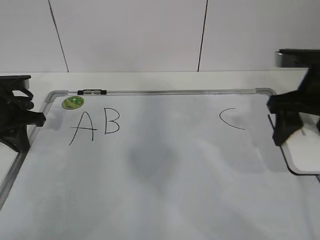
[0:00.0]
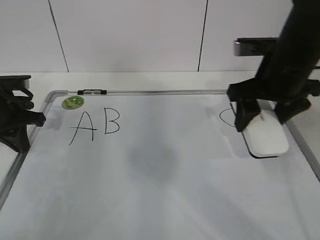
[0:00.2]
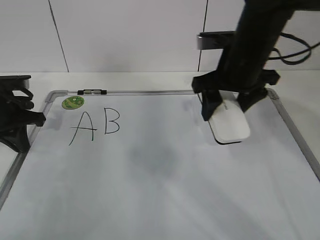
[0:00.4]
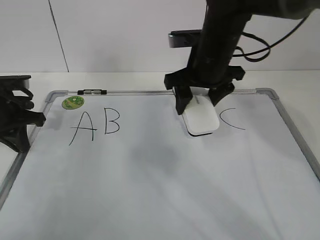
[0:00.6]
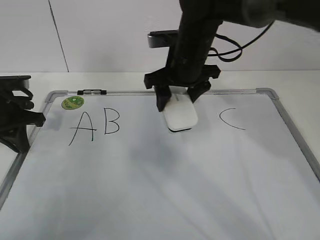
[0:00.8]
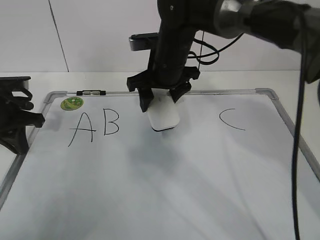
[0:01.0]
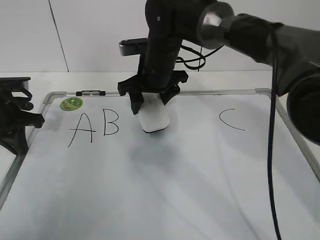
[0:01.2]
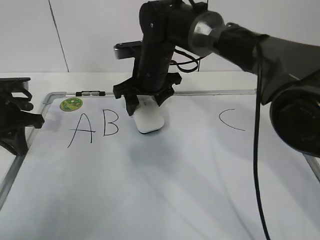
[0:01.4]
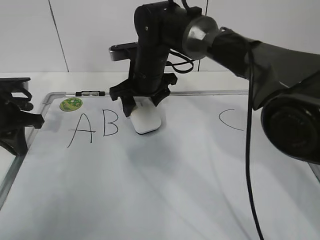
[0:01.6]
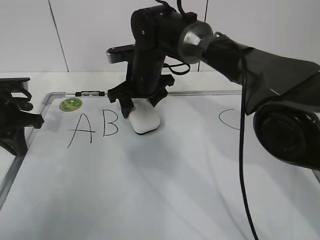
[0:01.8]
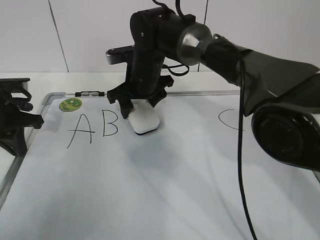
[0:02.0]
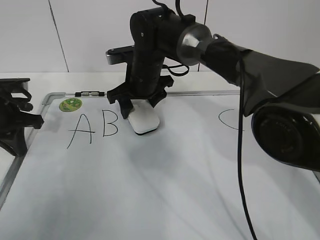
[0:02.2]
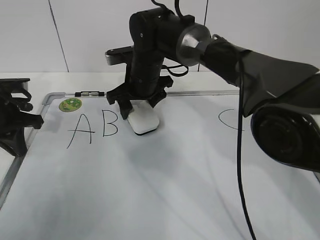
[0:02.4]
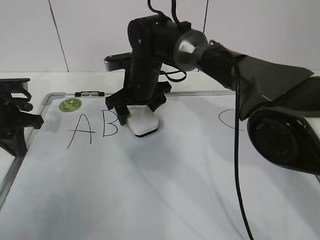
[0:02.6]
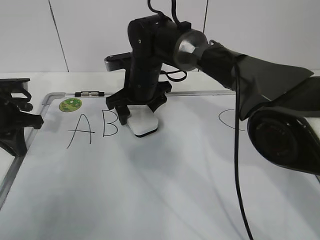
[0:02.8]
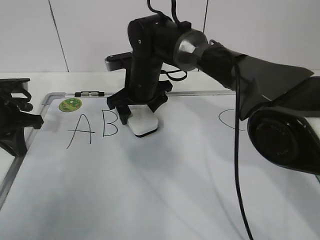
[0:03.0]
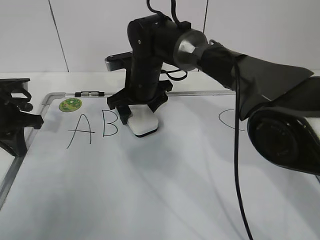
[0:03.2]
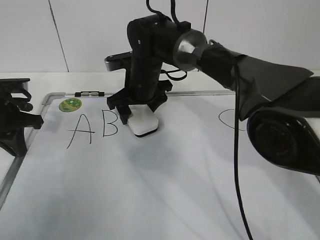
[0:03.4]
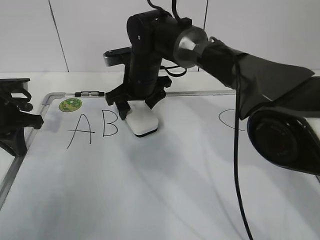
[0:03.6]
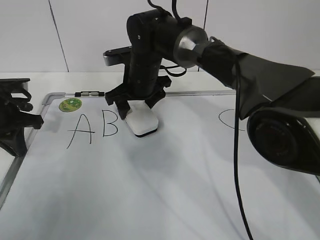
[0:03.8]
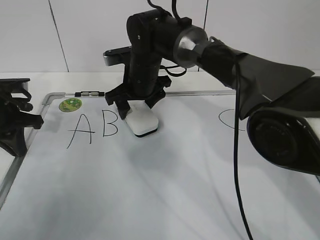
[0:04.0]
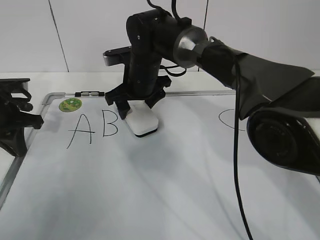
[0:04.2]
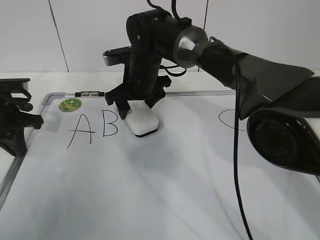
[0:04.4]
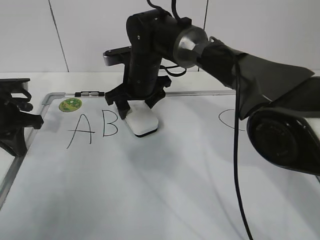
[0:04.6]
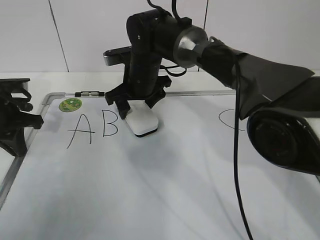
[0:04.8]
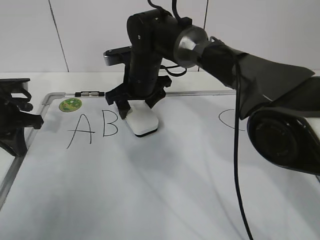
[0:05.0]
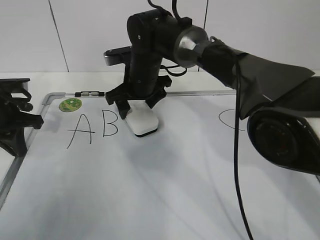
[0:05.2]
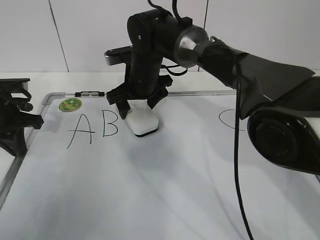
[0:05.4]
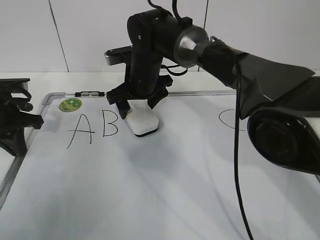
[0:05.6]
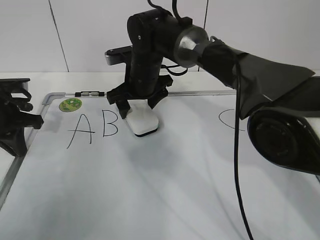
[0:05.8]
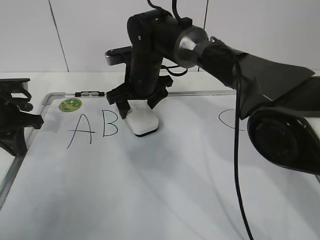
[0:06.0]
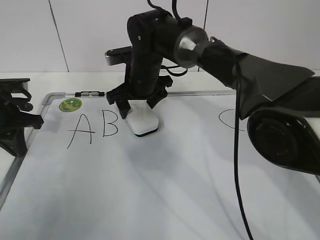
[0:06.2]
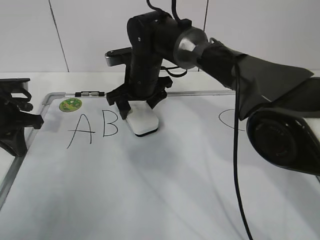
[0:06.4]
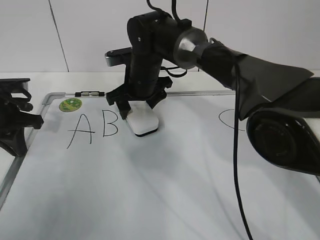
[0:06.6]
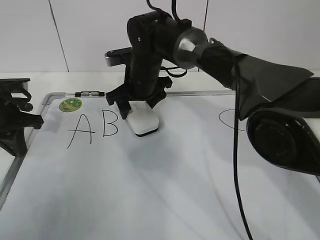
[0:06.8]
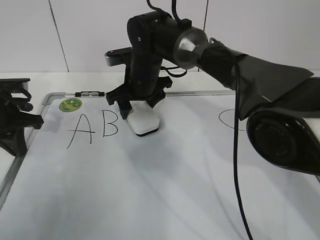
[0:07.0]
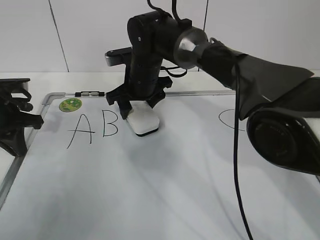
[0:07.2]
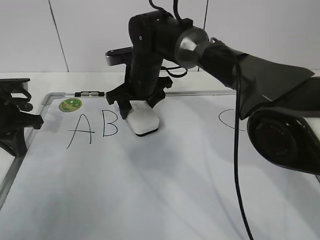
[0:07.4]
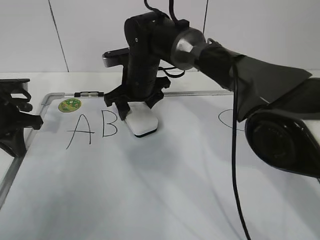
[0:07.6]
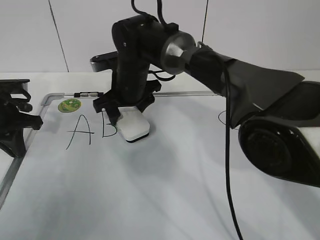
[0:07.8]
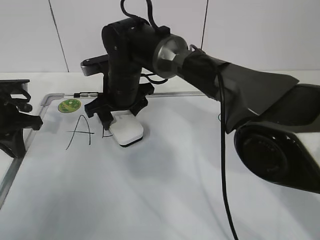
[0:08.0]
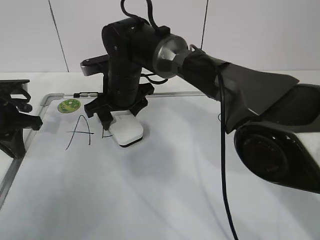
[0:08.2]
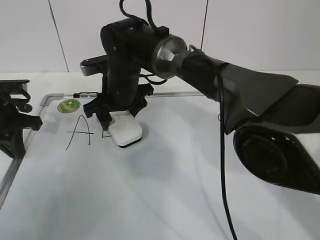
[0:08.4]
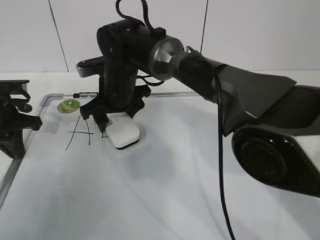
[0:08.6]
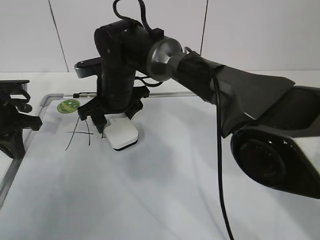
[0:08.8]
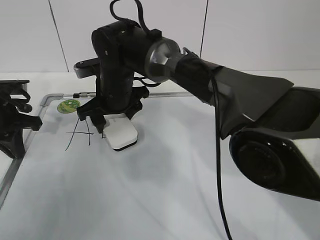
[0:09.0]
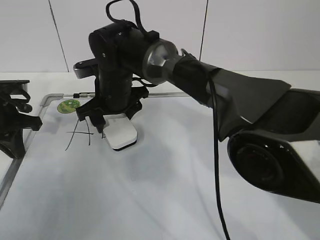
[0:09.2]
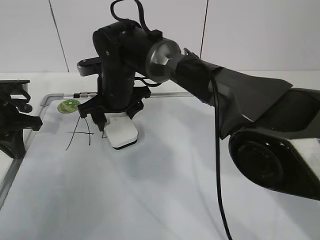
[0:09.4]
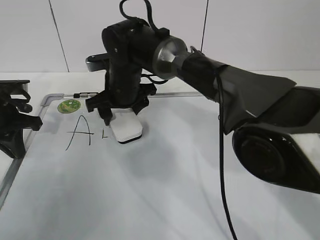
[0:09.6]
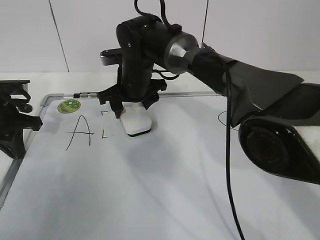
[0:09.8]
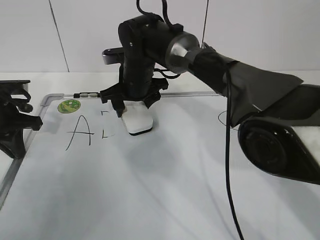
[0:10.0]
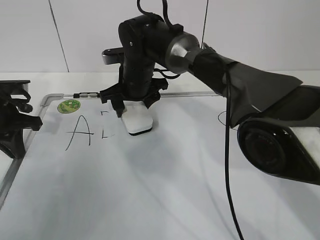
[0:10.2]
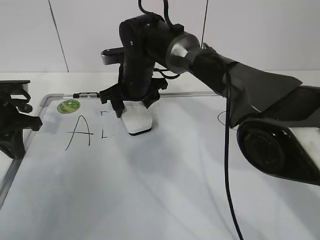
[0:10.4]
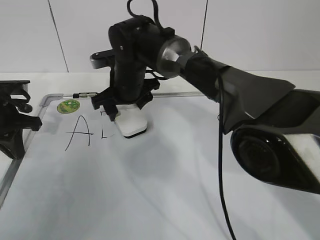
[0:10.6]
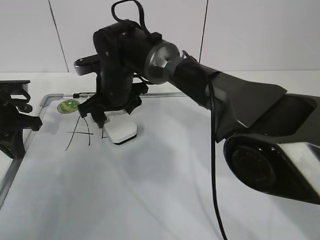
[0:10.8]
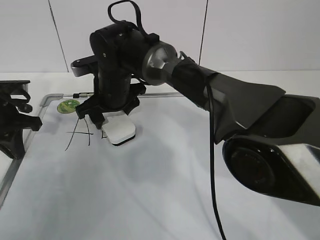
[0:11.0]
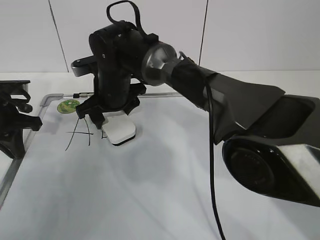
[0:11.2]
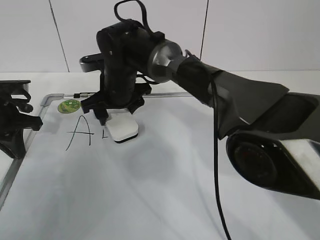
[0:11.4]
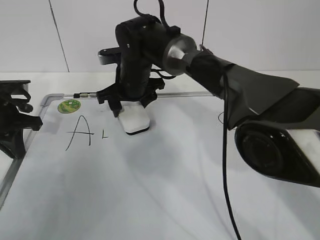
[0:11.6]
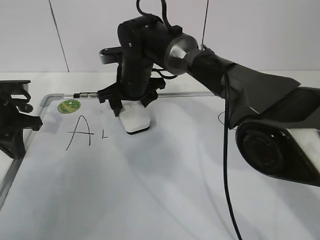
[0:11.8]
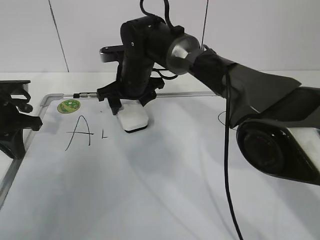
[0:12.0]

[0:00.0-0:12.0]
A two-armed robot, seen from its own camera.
Task of the whole recording: pick up the eraser on the blackboard and erase the letter "B".
0:00.0 to 0:01.6: The right gripper goes roughly 30 cm to the left and forward.
0:01.6 to 0:03.0: The right gripper opens its fingers.
0:03.0 to 0:04.4: The right gripper closes.
0:04.4 to 0:06.0: The right gripper opens its fingers.
0:06.0 to 0:07.6: The right gripper closes.
0:07.6 to 0:09.0: The right gripper shifts by some 5 cm.
0:09.0 to 0:10.4: The right gripper moves roughly 5 cm.
0:10.4 to 0:12.0: The grippers stay close to where they were, moving slightly.

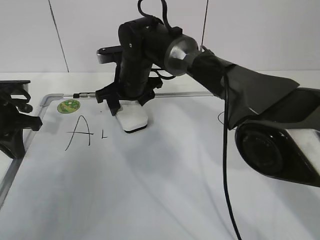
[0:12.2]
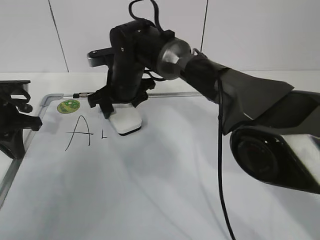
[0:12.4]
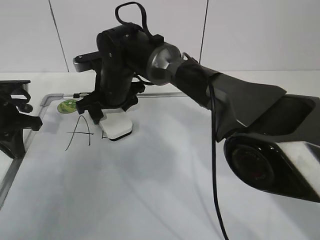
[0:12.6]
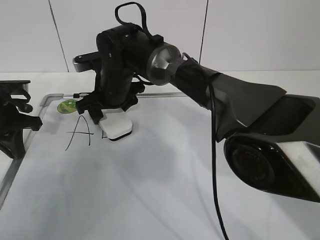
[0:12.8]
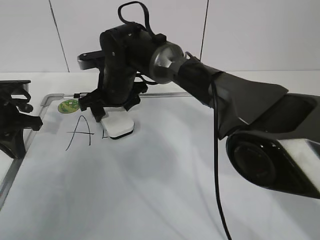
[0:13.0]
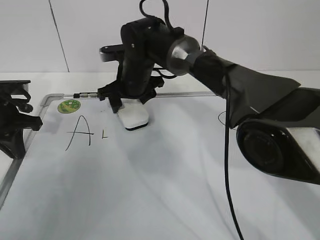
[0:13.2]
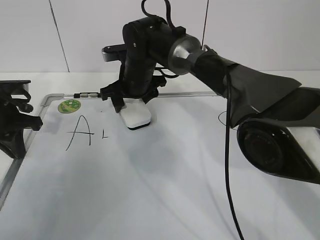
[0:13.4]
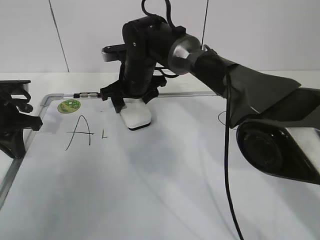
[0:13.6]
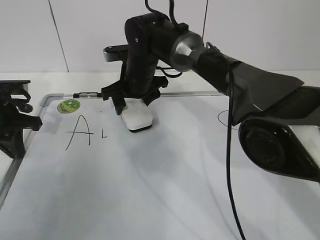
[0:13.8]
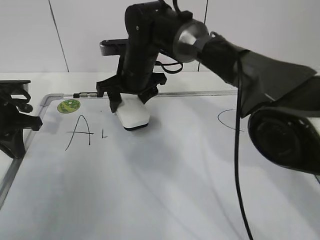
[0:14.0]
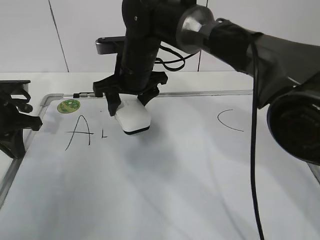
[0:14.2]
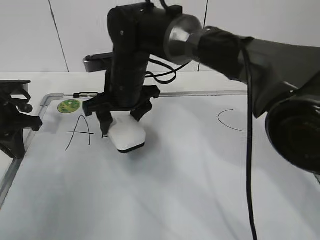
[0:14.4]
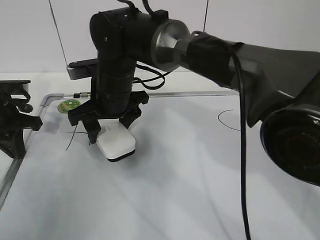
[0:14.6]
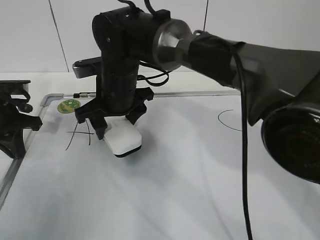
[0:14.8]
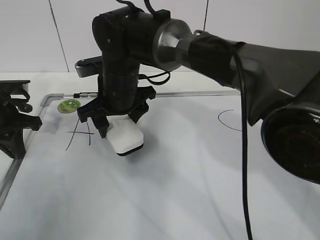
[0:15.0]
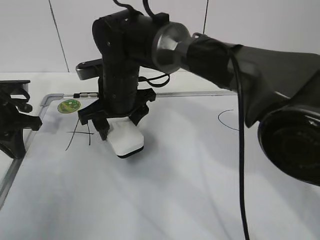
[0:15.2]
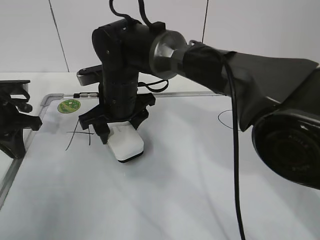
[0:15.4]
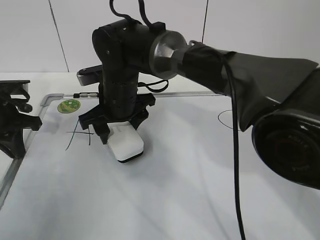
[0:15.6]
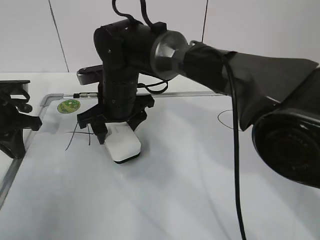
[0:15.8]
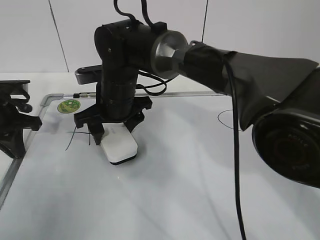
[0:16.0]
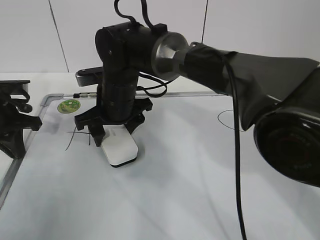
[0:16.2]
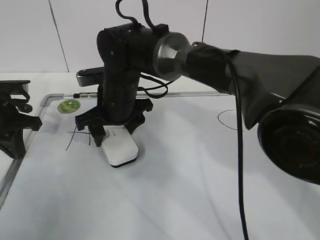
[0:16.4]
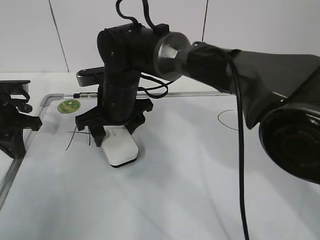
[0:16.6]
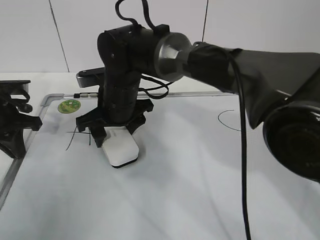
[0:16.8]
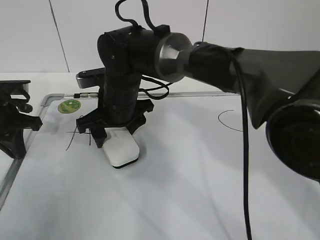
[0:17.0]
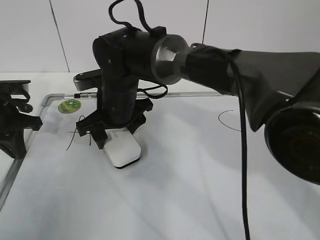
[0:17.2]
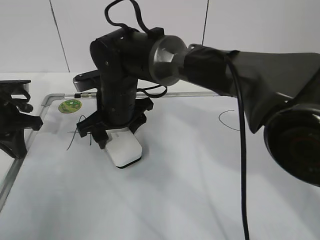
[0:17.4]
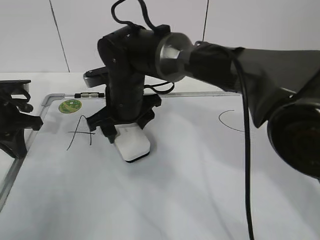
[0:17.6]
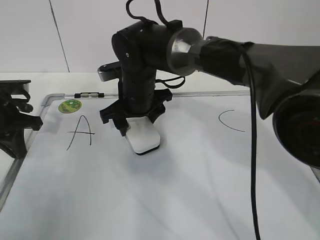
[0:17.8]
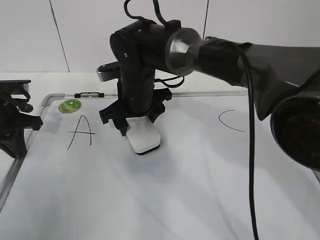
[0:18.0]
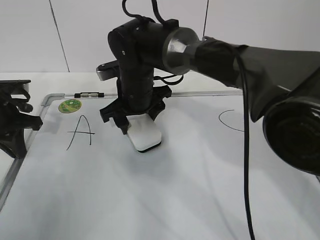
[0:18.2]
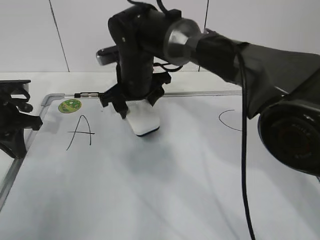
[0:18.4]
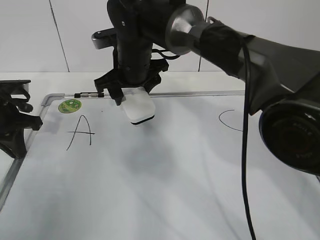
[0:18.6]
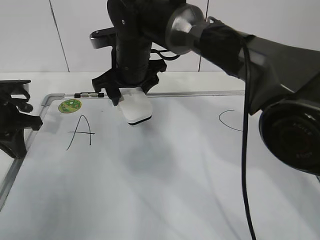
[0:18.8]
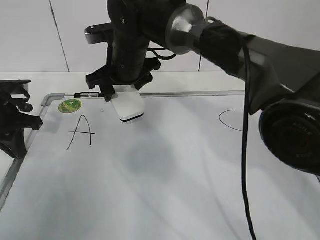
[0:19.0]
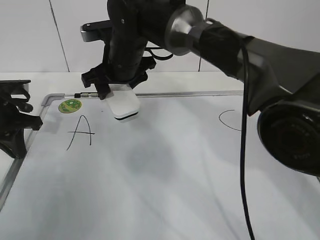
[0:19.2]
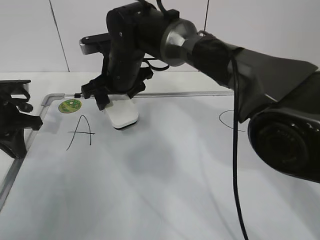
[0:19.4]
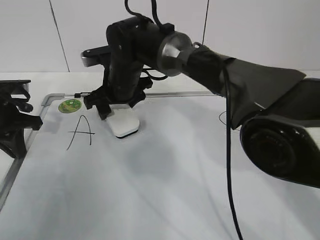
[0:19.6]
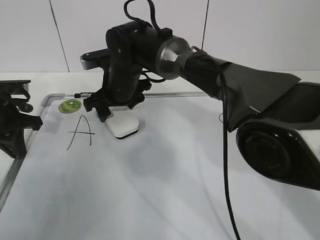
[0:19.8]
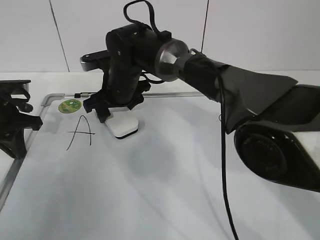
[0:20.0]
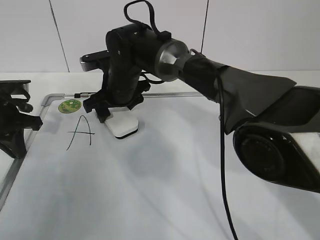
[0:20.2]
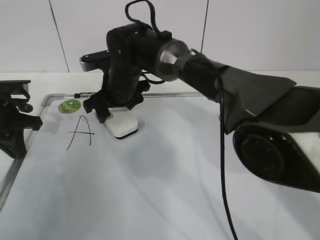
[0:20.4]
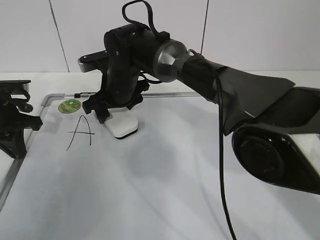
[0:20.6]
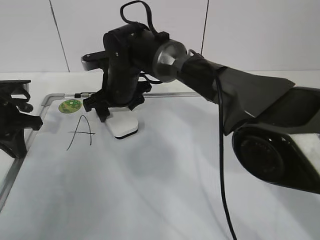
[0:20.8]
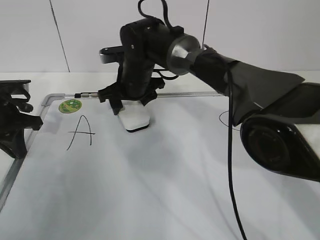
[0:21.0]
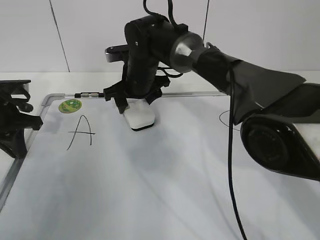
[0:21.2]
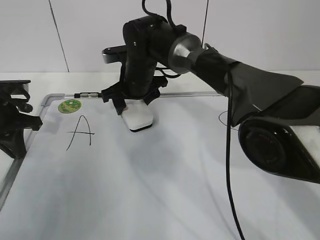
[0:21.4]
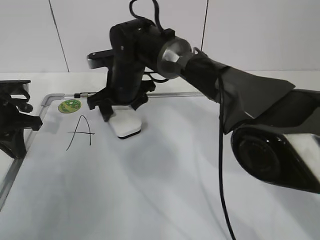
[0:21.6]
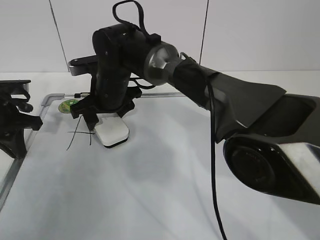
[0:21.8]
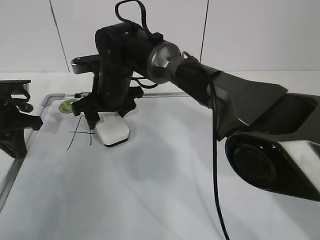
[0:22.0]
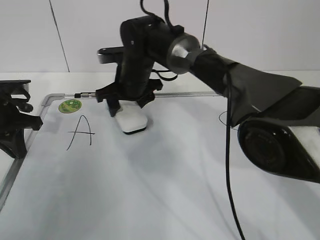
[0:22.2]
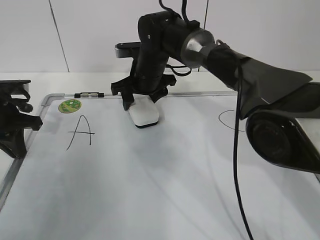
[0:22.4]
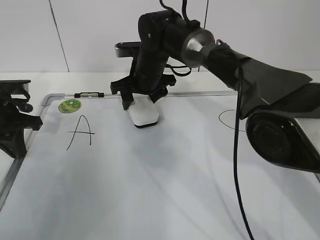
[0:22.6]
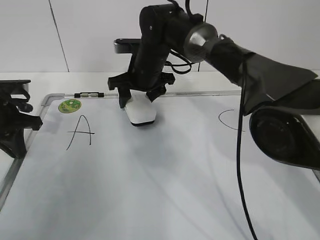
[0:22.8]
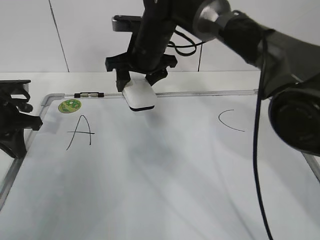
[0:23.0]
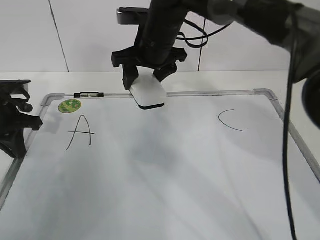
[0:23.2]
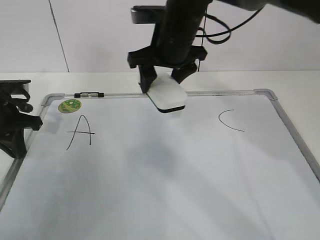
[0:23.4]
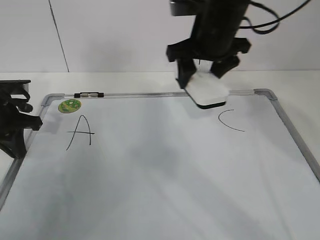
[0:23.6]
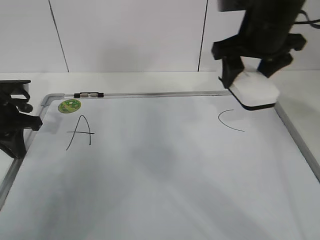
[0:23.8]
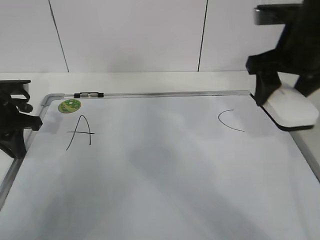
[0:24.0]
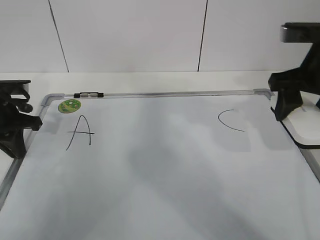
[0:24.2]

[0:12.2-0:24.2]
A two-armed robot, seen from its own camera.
Task of the whole recording: pick up the eraser on the blackboard and erase the letter "B".
Step, 0:12.2 to 0:16.4: Erase the letter B with your right hand.
Step, 0:16.8 to 0:21.4: Put down the eraser with your right hand.
0:12.2 to 0:13.8: The grippers move only a little.
0:13.8 to 0:15.2: The right gripper is displaced backward by roughly 5 cm.
0:15.2 to 0:18.2: The grippers move only a little.
0:19.8 to 0:21.2: The grippers make only small movements.
0:22.6 to 0:24.2: The right gripper is displaced to the right, backward and upward by approximately 30 cm.
